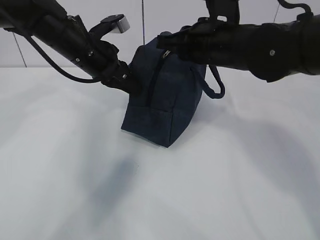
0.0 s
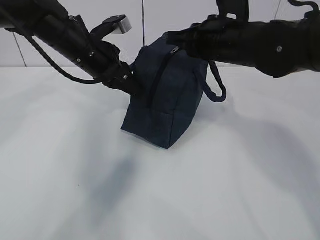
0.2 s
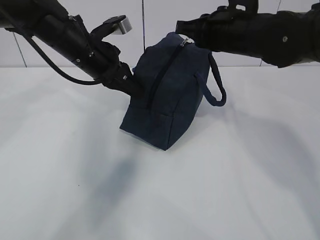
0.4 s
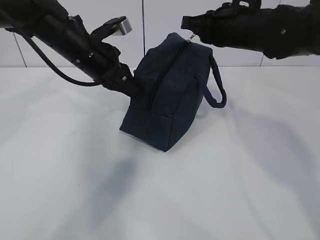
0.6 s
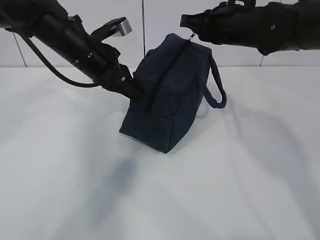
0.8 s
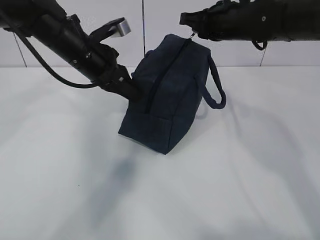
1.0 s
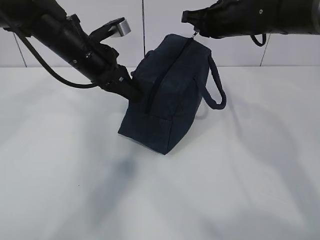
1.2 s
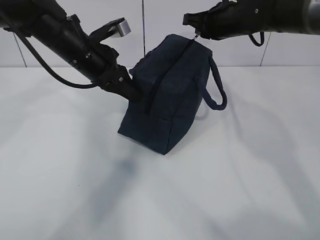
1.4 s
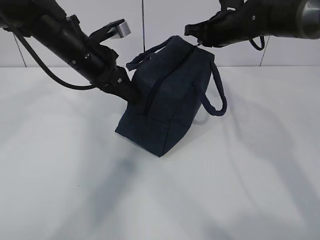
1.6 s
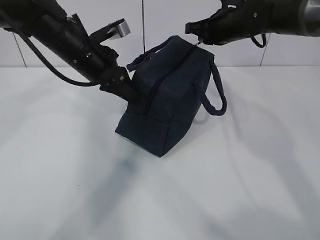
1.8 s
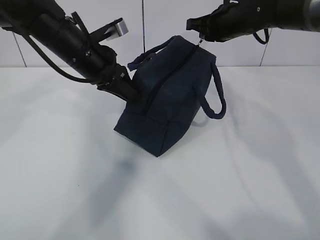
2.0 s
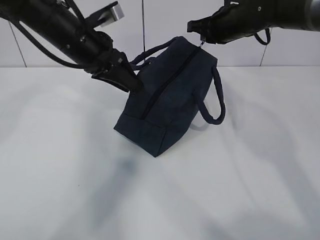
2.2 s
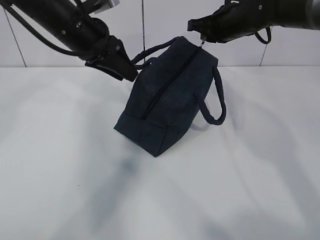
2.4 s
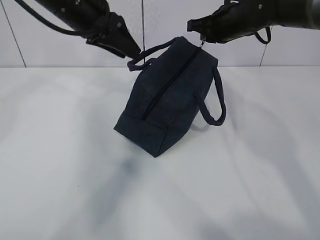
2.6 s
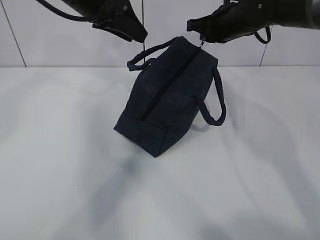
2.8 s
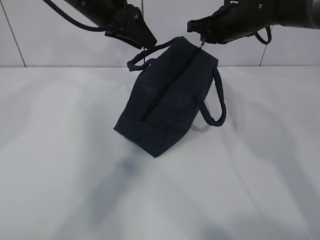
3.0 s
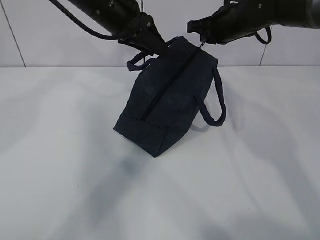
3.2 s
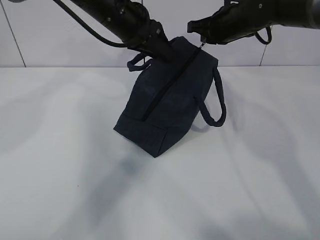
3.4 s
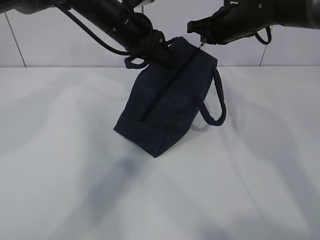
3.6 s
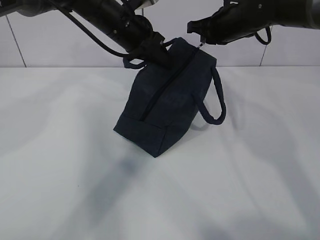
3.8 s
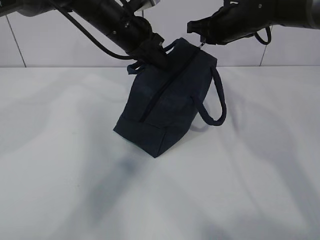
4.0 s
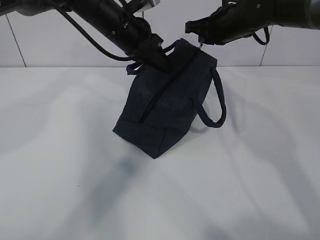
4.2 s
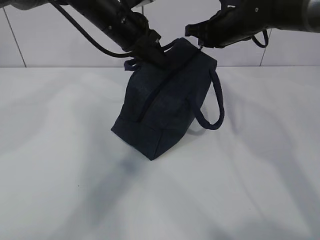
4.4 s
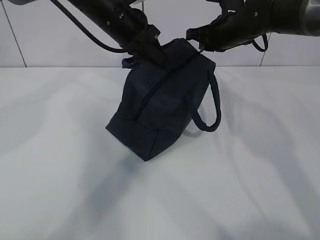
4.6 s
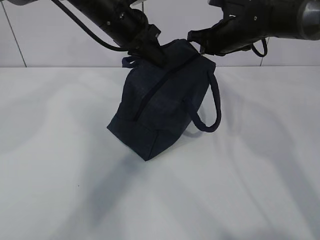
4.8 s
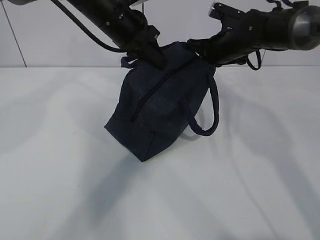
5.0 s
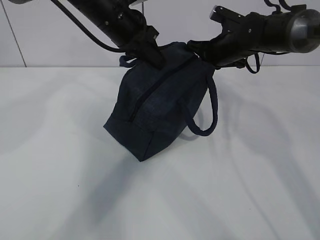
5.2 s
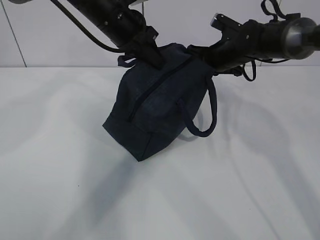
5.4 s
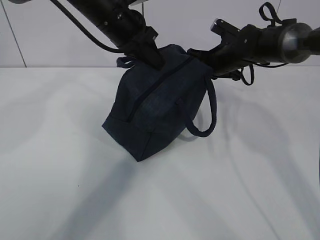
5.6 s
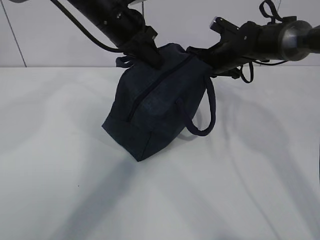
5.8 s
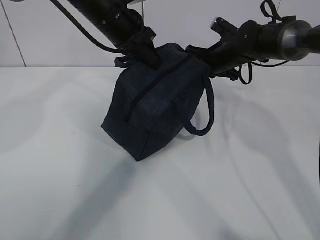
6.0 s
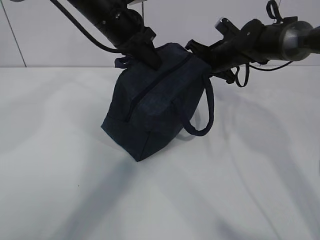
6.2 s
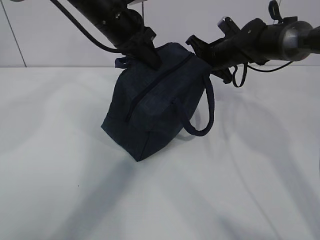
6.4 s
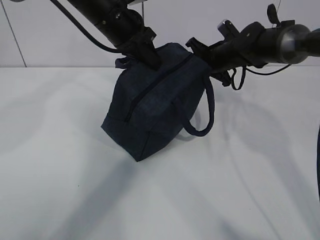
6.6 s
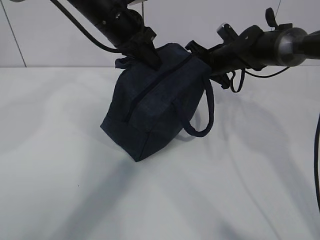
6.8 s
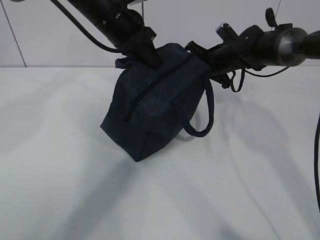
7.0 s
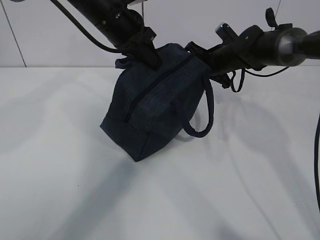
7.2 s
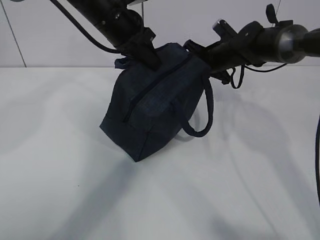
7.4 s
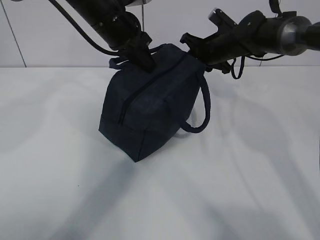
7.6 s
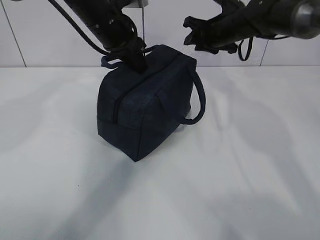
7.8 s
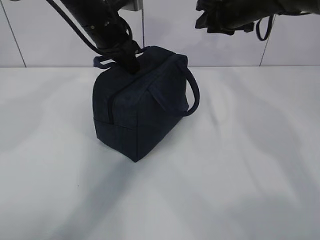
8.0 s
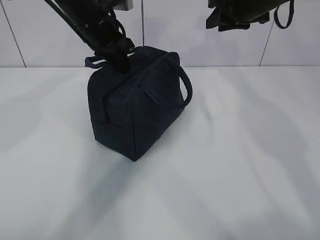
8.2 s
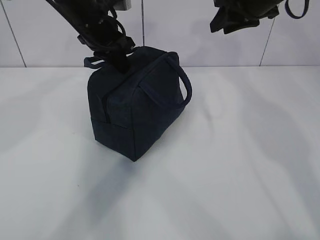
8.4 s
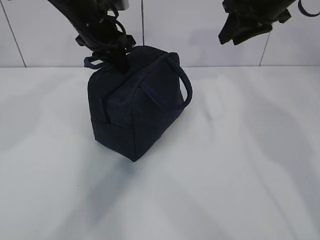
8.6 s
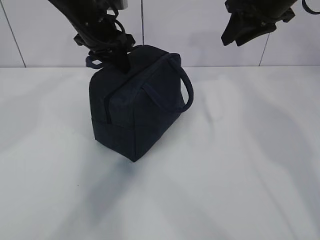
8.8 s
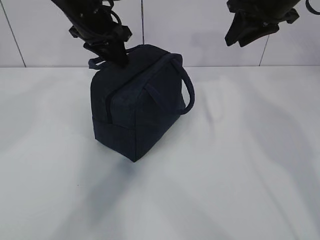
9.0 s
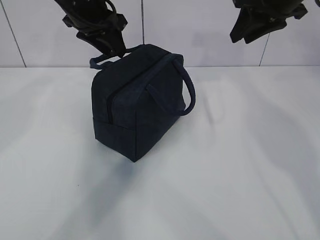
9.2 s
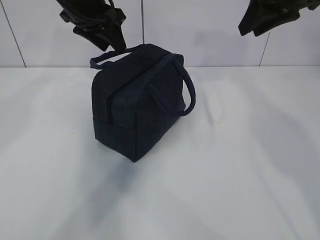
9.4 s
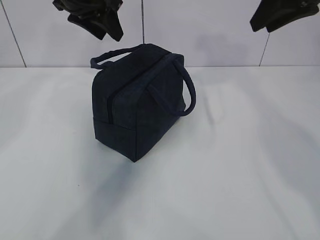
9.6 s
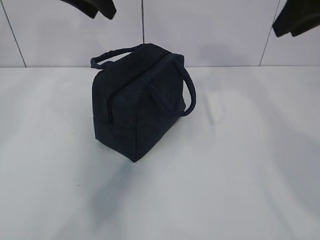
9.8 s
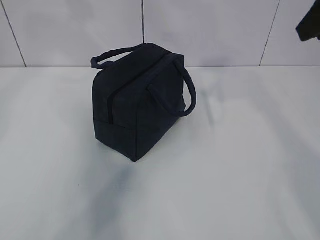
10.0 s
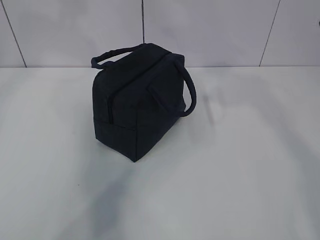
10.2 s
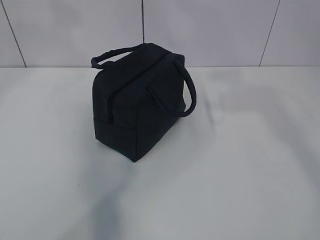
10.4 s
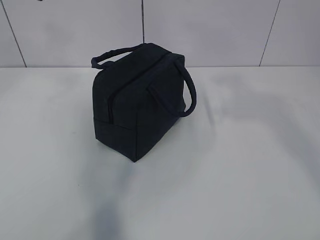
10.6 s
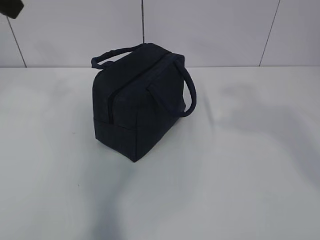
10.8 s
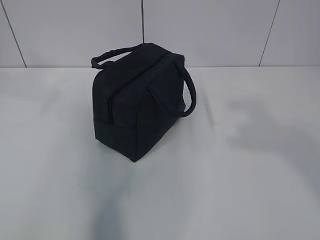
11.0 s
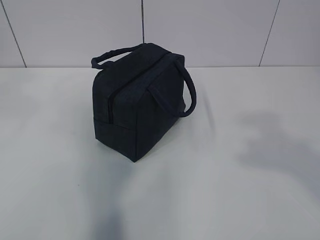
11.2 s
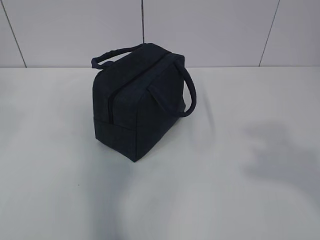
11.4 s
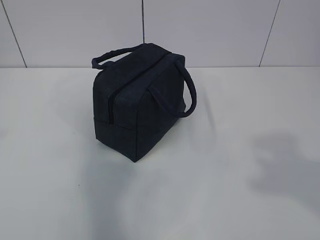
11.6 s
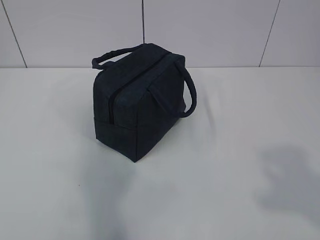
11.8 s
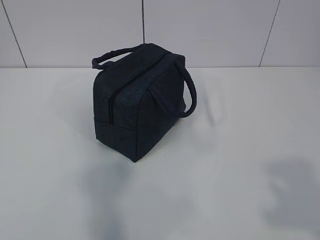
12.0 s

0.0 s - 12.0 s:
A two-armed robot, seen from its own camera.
0.0 s - 1.6 s: The right gripper goes some 15 cm forward and to the right.
1.6 s - 3.0 s: The left gripper is displaced upward by roughly 10 cm, and opens up.
3.0 s - 4.4 s: The left gripper changes place by roughly 5 cm, and closes its fingers.
4.4 s - 6.0 s: The right gripper is displaced downward by approximately 10 cm.
6.0 s - 7.6 s: The right gripper opens up.
7.6 s - 9.0 s: The right gripper shifts approximately 20 cm upward and backward; the left gripper opens.
9.0 s - 10.4 s: The right gripper moves backward and upward, roughly 25 cm. The left gripper shifts some 20 cm upward and backward.
10.4 s - 12.0 s: The left gripper goes some 35 cm backward.

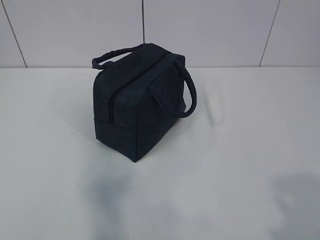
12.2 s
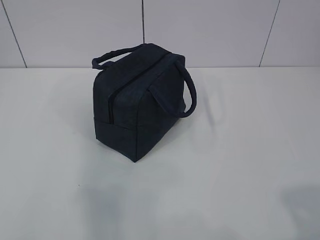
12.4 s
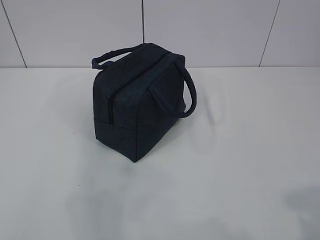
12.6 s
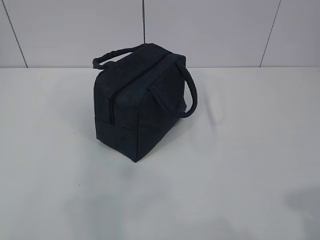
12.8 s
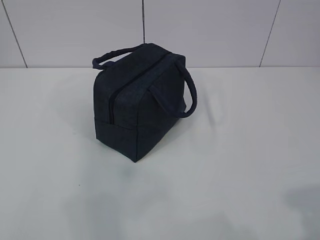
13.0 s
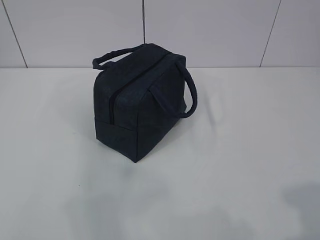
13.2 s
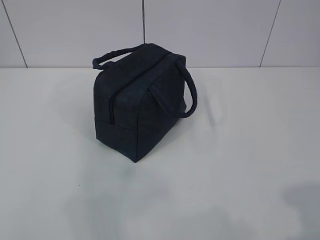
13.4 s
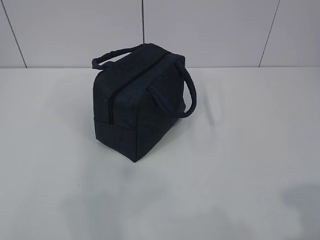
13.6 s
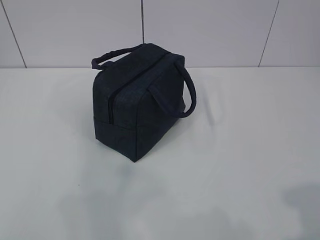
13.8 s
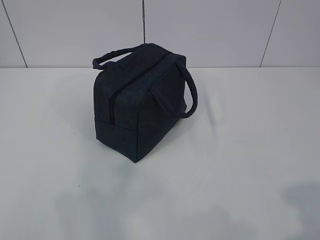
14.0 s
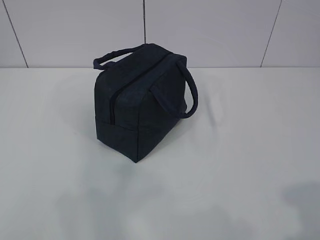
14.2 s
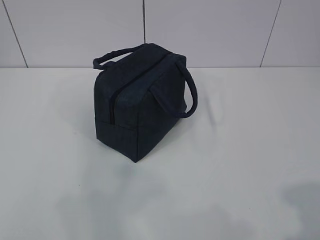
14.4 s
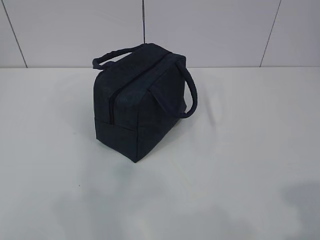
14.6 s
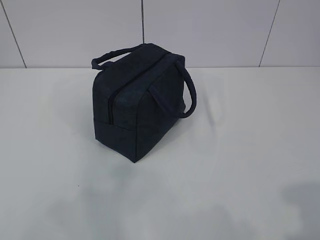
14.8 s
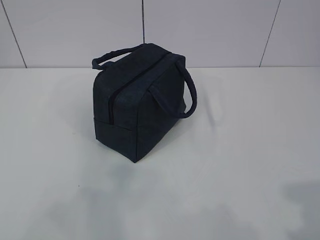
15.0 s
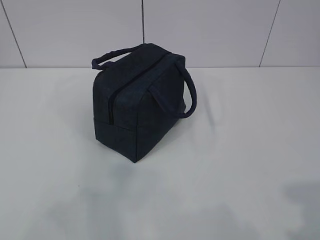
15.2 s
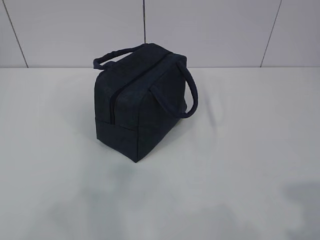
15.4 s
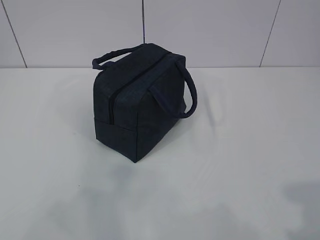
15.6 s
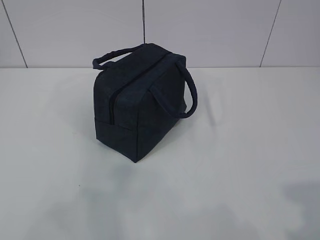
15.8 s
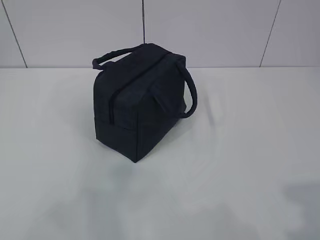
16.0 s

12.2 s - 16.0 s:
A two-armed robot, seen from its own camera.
12.2 s - 13.4 s: The left gripper travels downward by roughly 5 cm.
13.4 s - 14.8 s: There are only small adjustments of the grippers.
